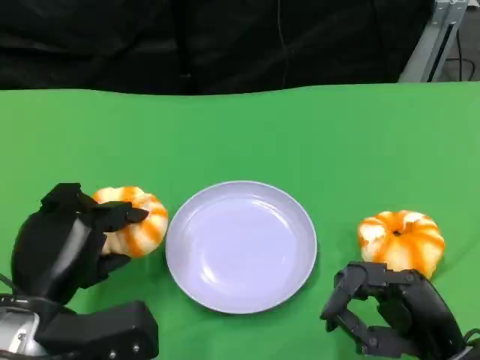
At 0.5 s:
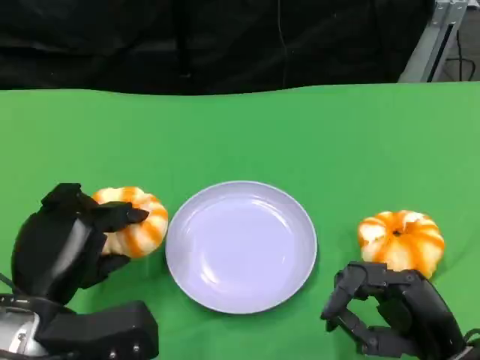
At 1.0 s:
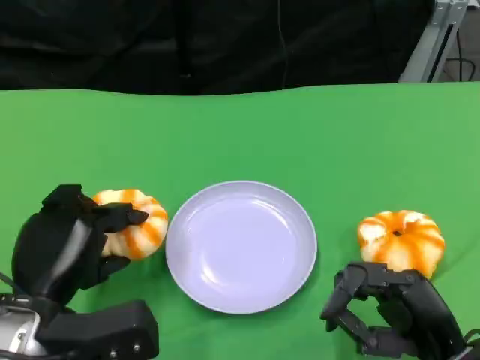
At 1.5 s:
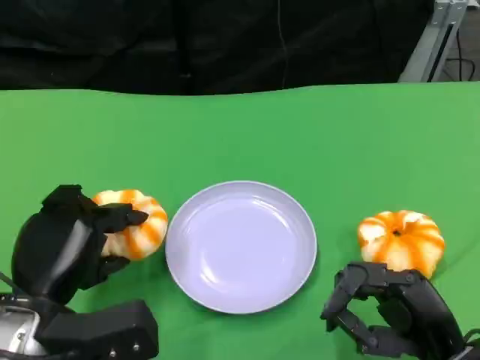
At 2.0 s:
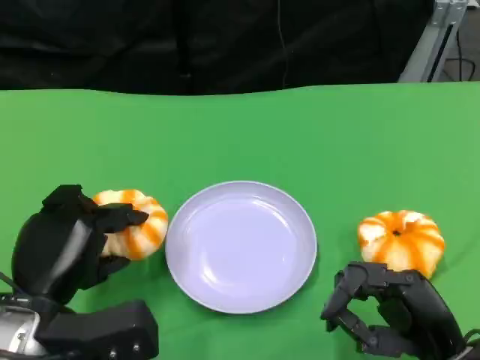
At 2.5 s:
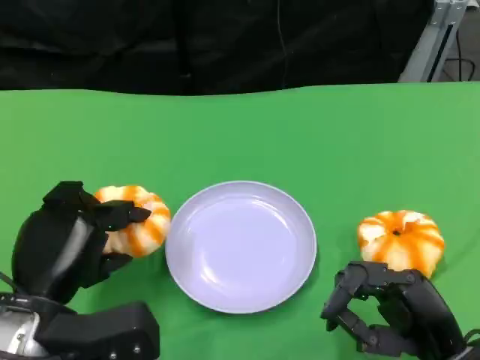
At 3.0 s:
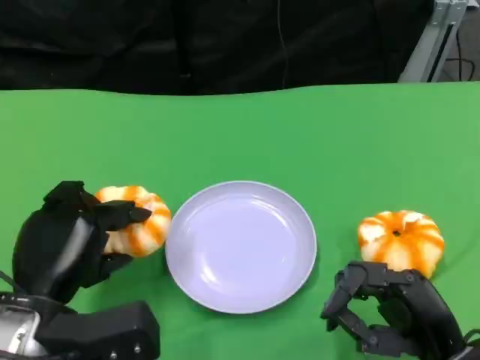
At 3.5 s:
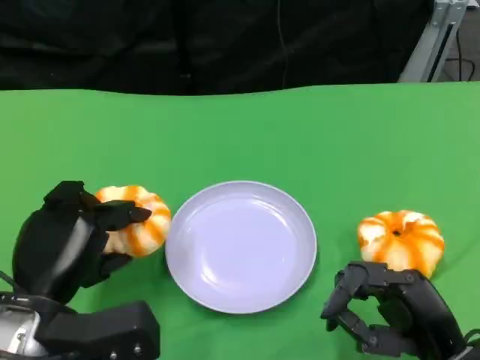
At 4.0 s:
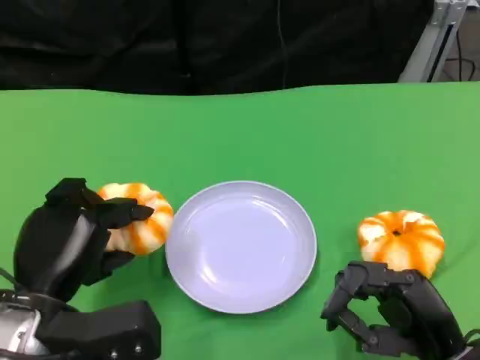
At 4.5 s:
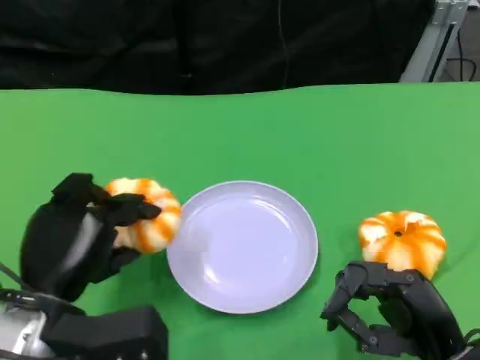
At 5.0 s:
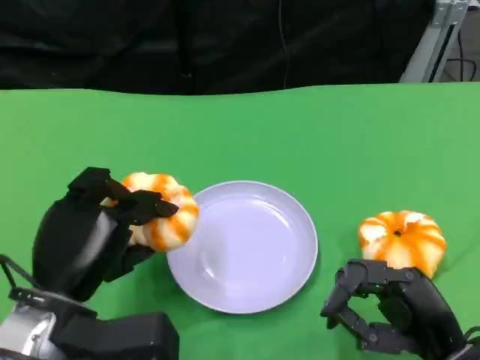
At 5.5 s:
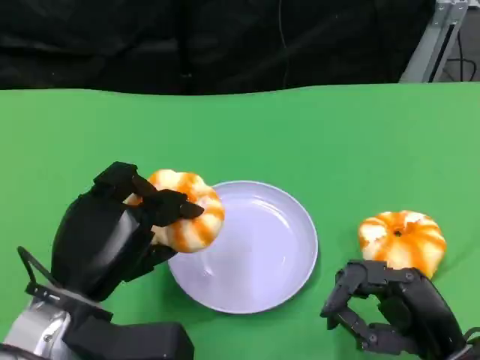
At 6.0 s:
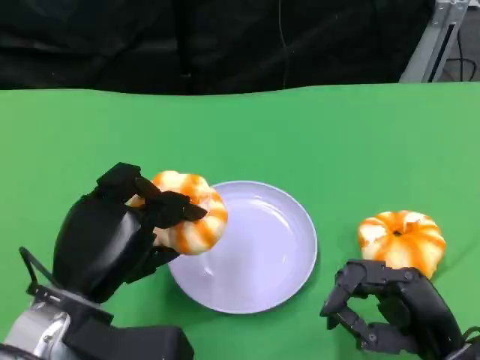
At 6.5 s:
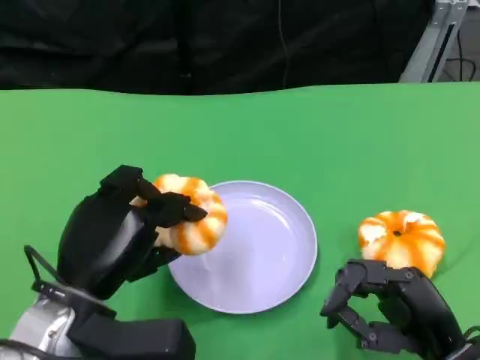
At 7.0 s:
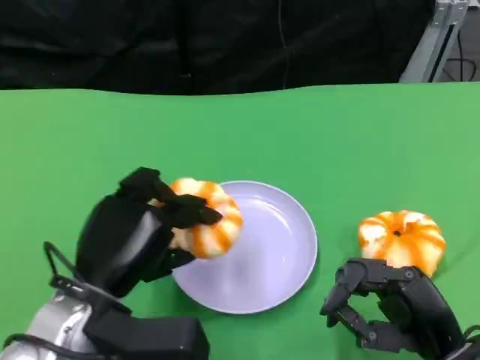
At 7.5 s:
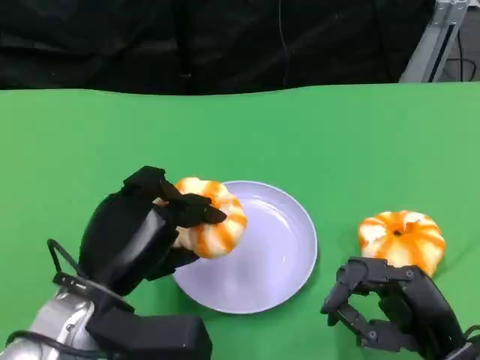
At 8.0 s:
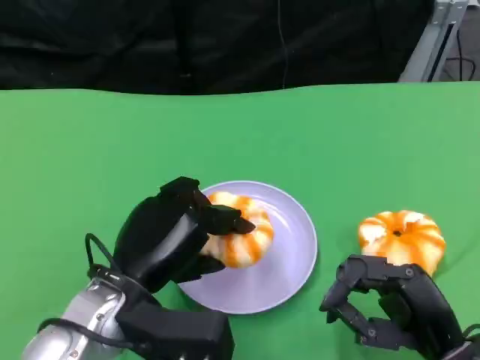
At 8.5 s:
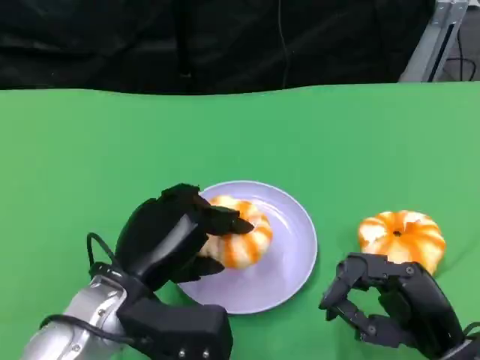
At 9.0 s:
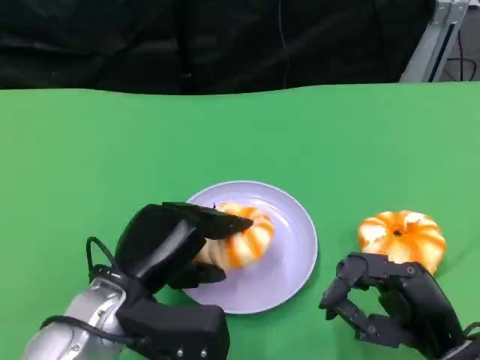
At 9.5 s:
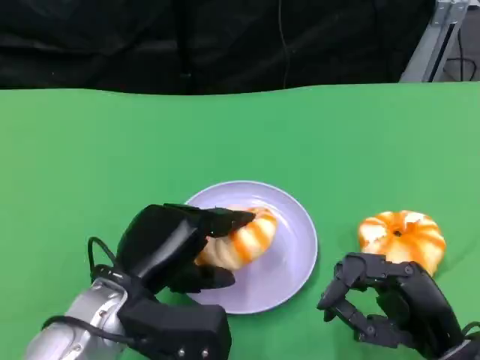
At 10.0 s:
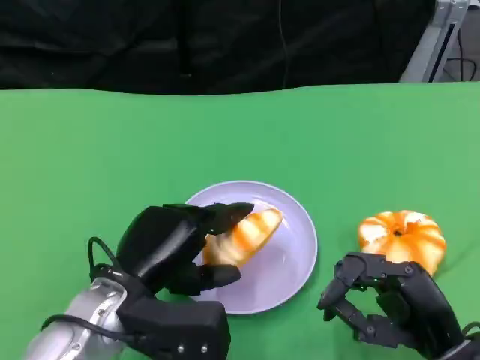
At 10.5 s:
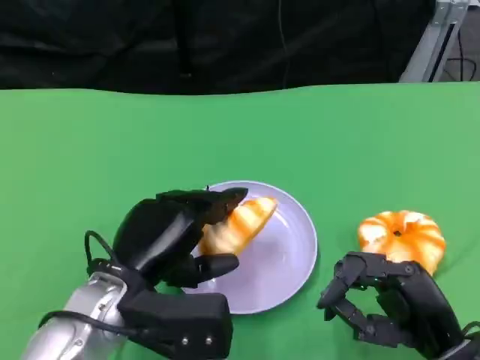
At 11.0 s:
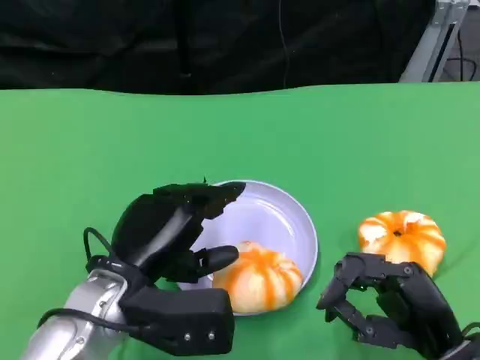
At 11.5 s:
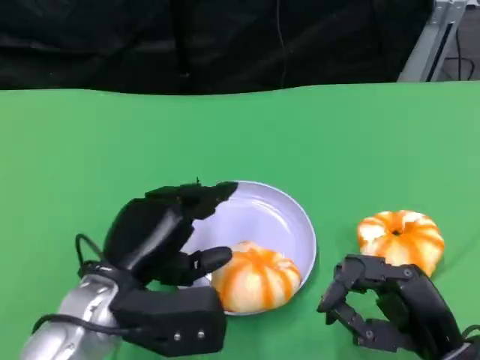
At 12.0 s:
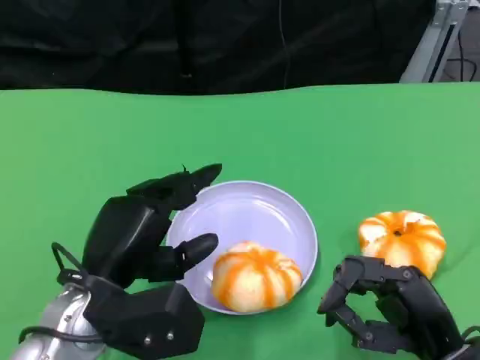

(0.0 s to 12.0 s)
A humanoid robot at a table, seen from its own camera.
Task of the whole recording: Grasp the bread from the table and place it into the plate.
0.0 s - 4.0 s: Neither hand changes place.
4.0 s - 6.0 s: The hands make only small movements.
8.0 s - 12.0 s: There are only small adjustments of the hands.

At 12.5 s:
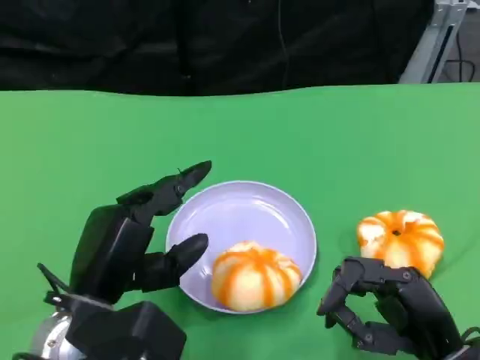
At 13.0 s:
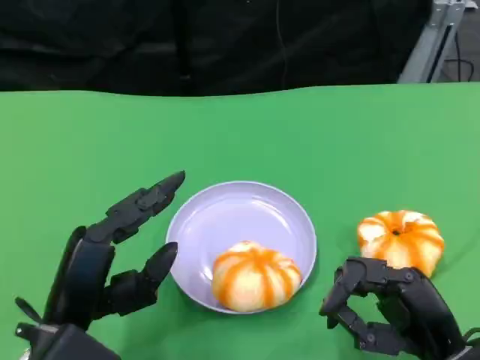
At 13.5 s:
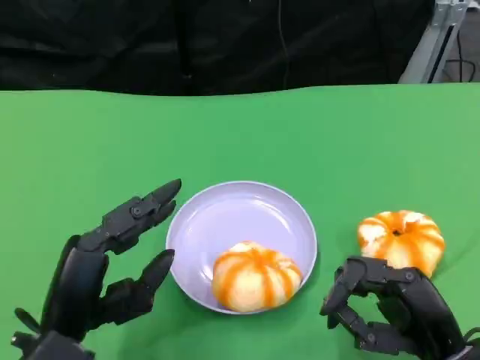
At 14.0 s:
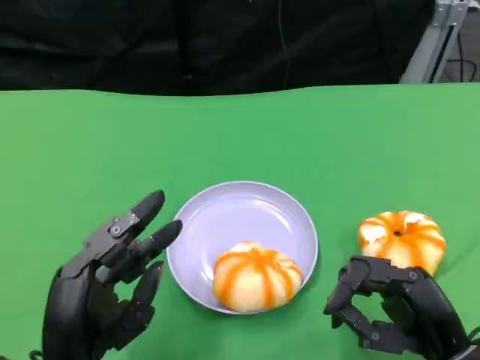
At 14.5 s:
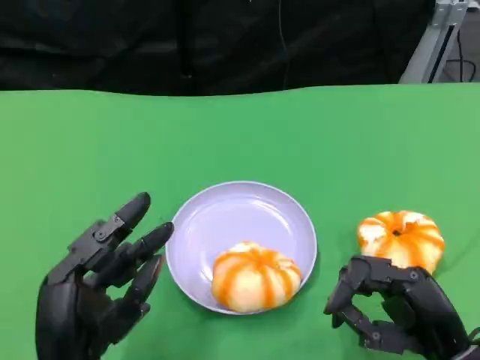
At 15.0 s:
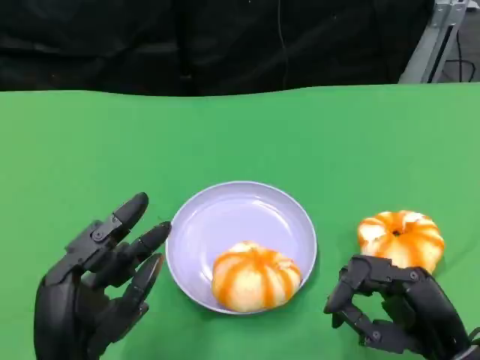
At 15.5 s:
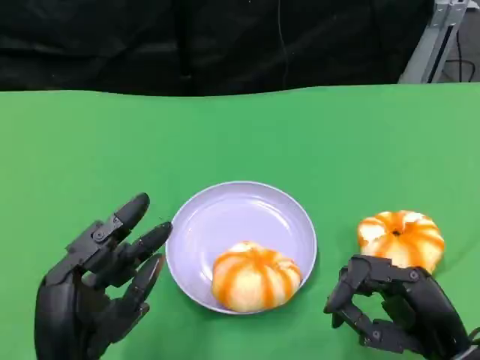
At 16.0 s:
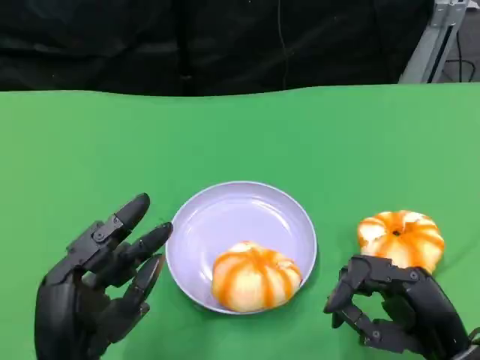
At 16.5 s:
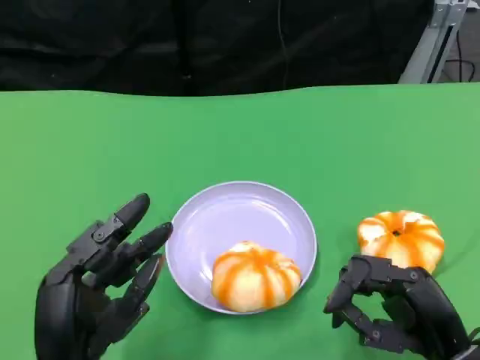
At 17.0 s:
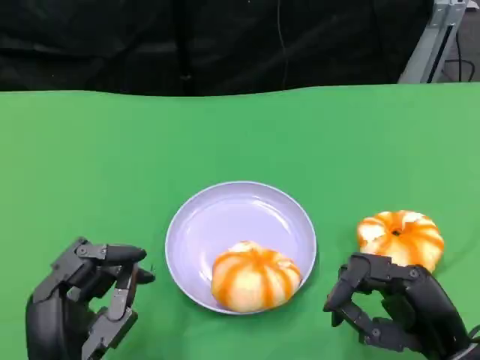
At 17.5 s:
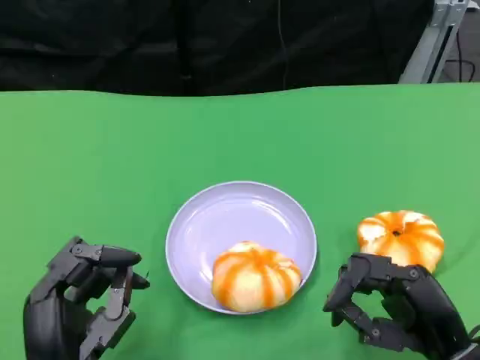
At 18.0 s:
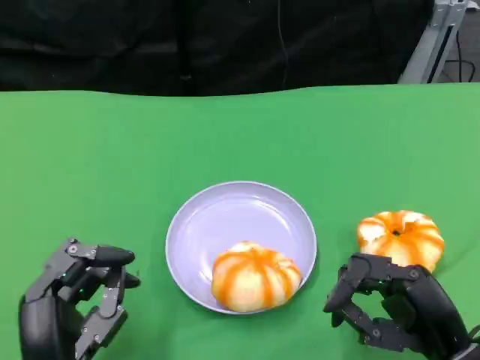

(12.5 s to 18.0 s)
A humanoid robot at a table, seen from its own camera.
Task of the whole recording: Grasp the bread from the table and place it into the plate.
12.5 s - 14.5 s: The left hand shifts roughly 5 cm backward.
14.5 s - 16.0 s: Neither hand changes place.
16.0 s - 18.0 s: The hands stay close to where they were, moving slightly.

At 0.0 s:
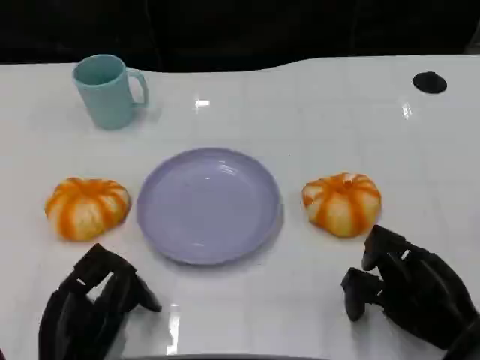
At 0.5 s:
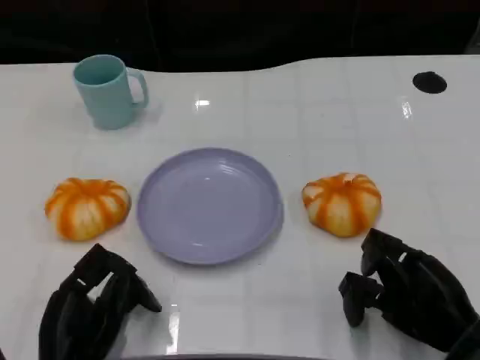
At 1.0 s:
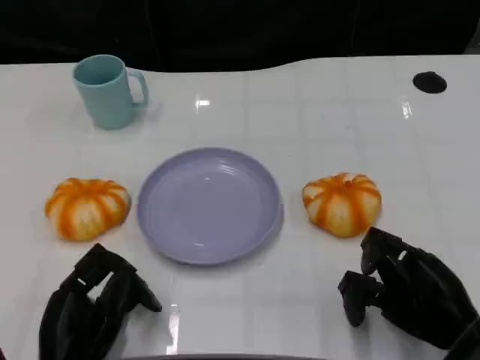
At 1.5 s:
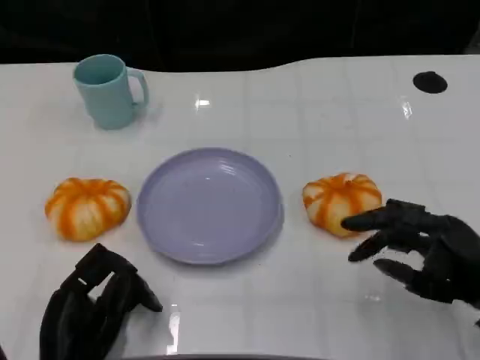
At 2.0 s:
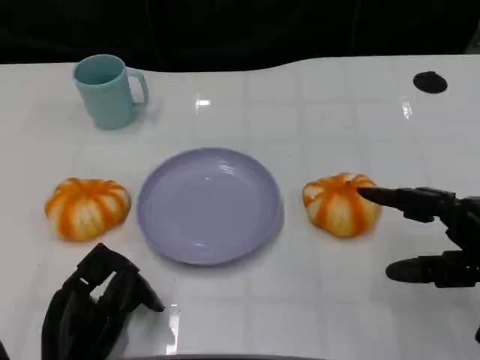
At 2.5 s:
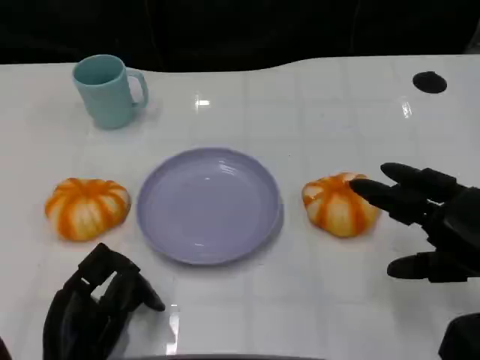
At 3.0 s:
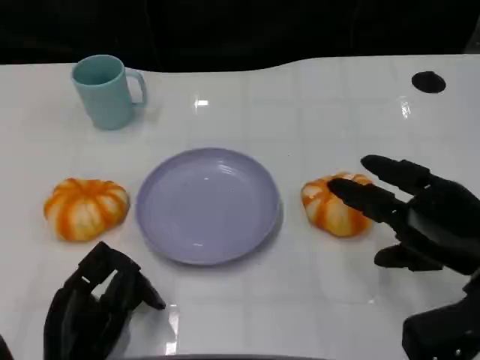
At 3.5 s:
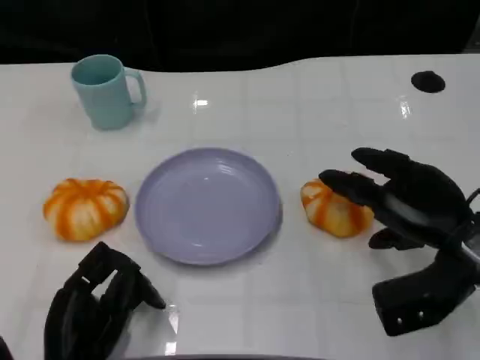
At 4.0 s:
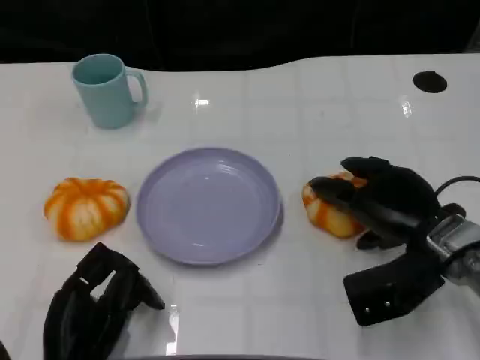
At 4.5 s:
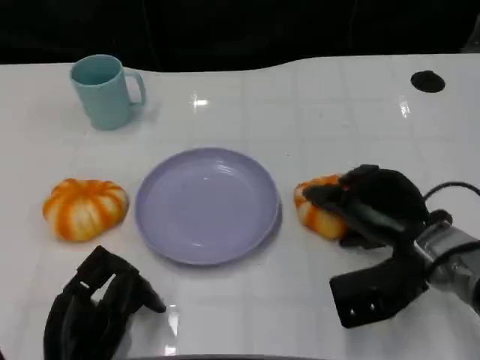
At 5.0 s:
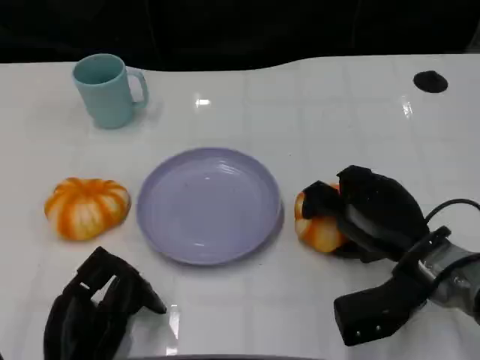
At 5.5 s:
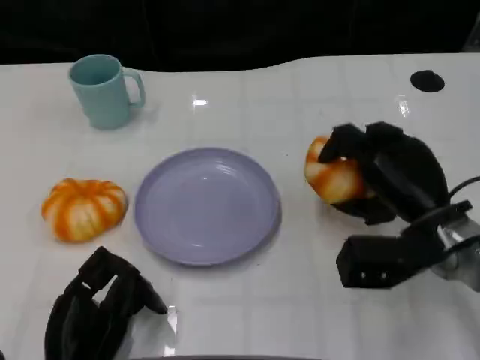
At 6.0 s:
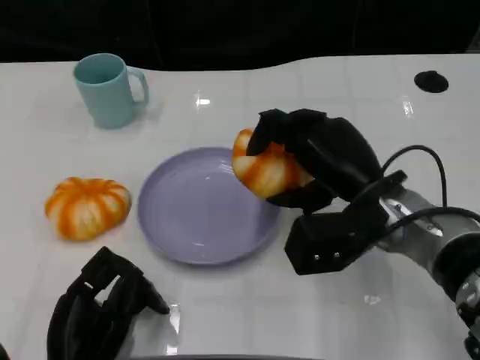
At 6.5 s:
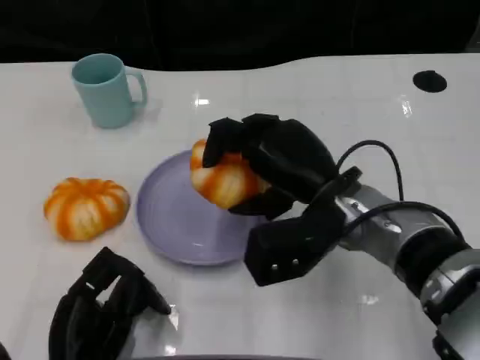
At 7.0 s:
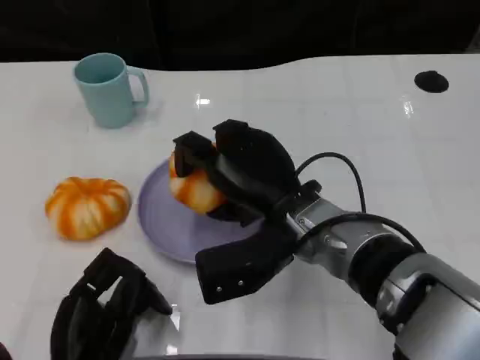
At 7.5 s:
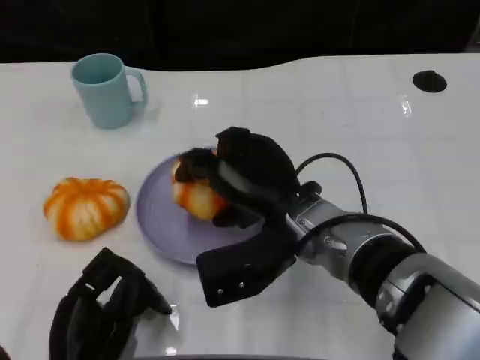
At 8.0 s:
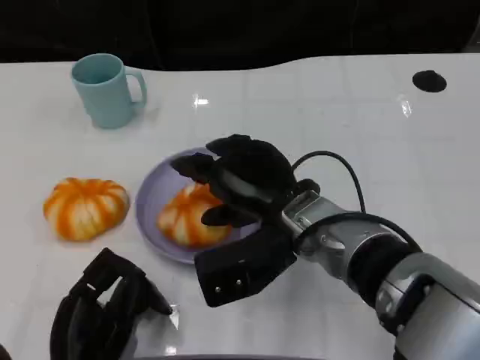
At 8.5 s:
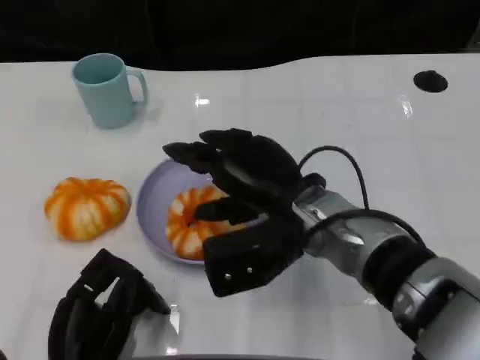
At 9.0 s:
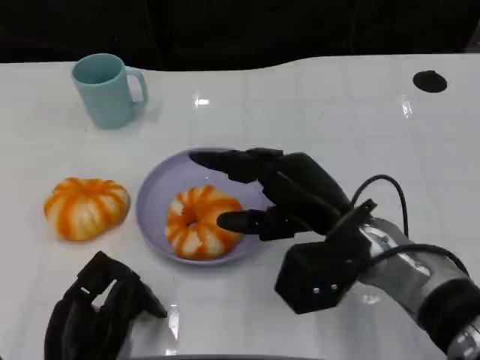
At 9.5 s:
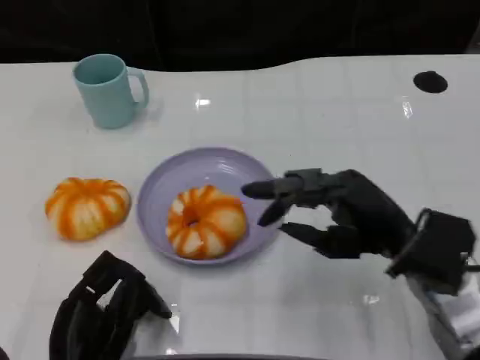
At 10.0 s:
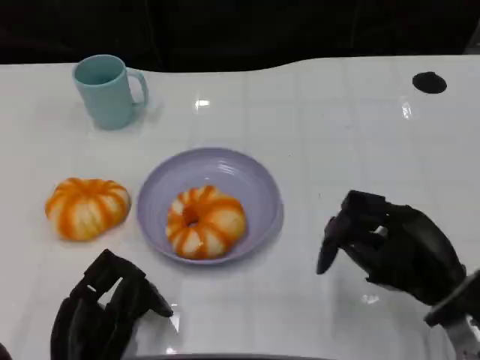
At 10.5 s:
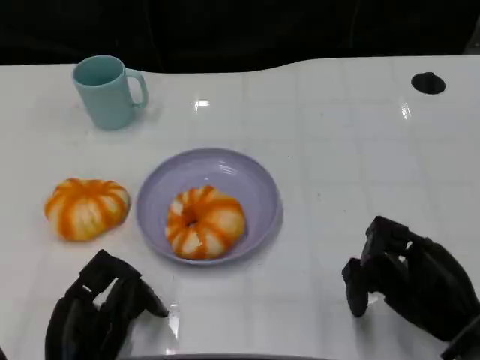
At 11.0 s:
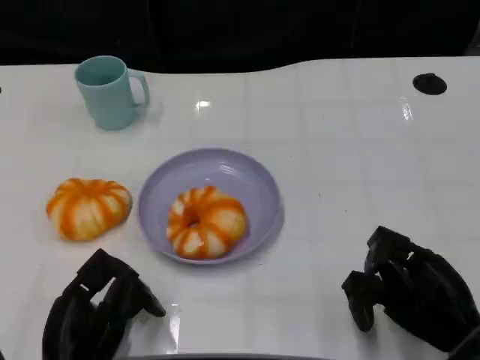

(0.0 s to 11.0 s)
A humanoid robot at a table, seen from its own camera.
Task of the whole recording: Grasp the bread from the table and place it into the plate.
0.0 s - 2.0 s: The right hand travels upward by some 5 cm.
2.0 s - 3.5 s: The right hand travels forward and to the left by approximately 10 cm.
5.5 s - 7.5 s: The right hand shifts some 15 cm to the left.
7.5 s - 9.0 s: The right hand is displaced to the right by approximately 5 cm.
9.0 s - 11.0 s: The right hand moves to the right, downward and backward, approximately 15 cm.
